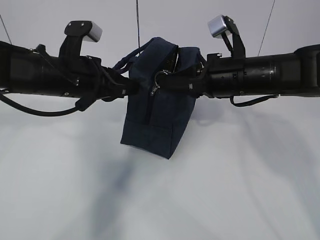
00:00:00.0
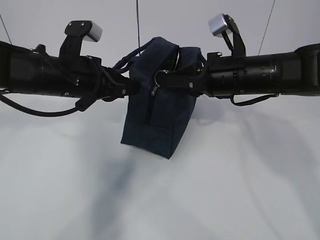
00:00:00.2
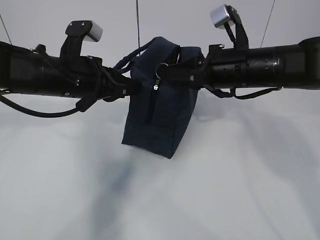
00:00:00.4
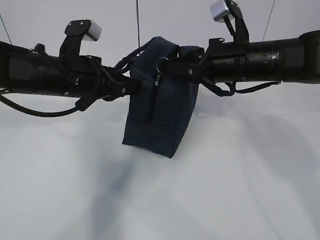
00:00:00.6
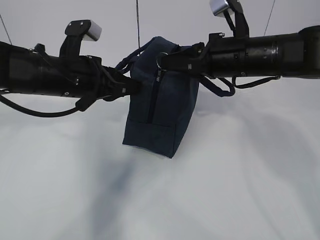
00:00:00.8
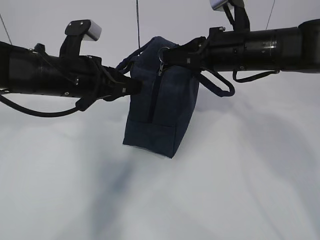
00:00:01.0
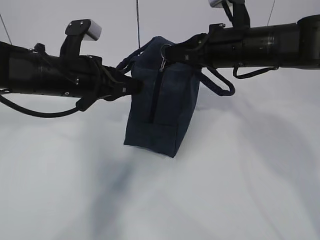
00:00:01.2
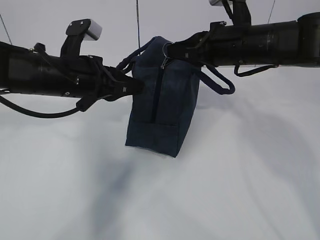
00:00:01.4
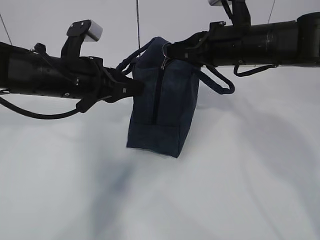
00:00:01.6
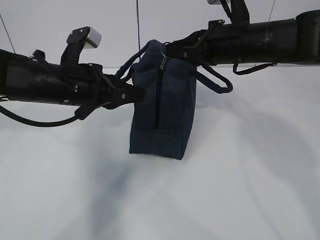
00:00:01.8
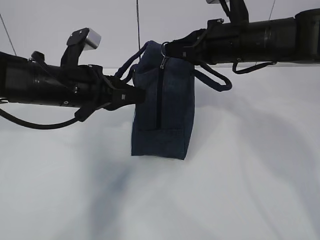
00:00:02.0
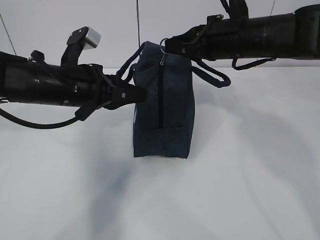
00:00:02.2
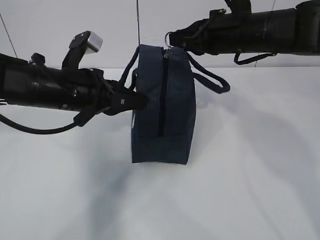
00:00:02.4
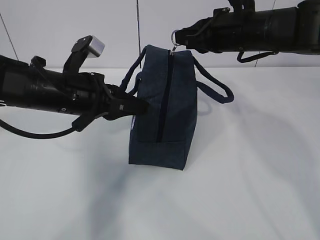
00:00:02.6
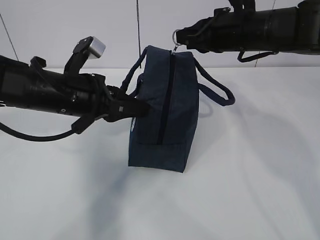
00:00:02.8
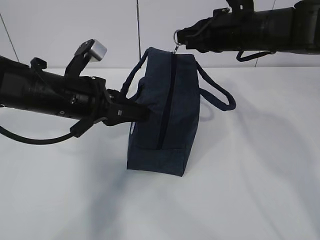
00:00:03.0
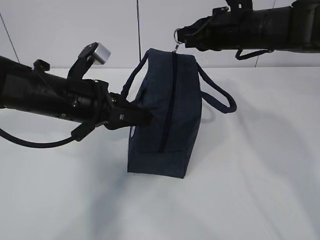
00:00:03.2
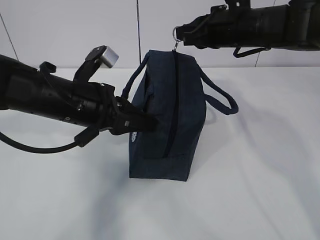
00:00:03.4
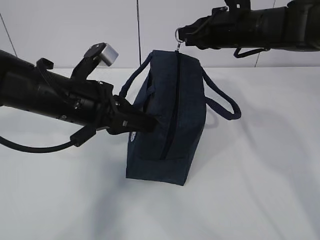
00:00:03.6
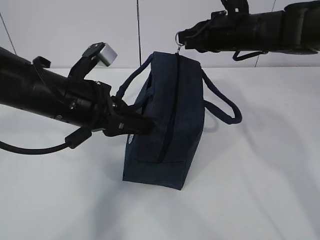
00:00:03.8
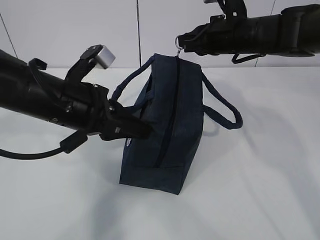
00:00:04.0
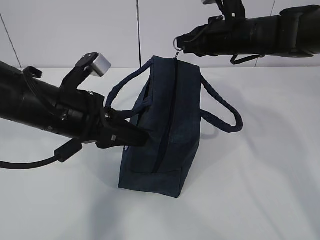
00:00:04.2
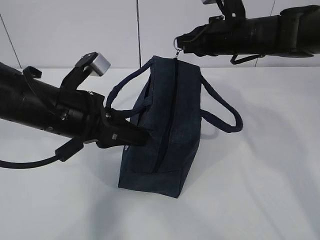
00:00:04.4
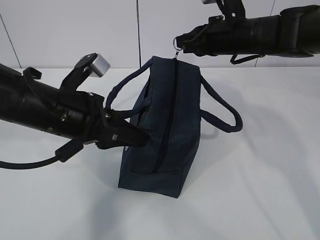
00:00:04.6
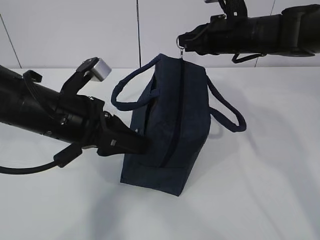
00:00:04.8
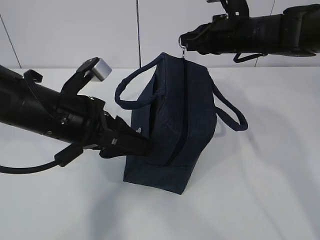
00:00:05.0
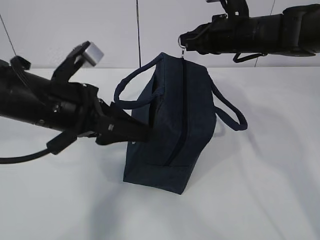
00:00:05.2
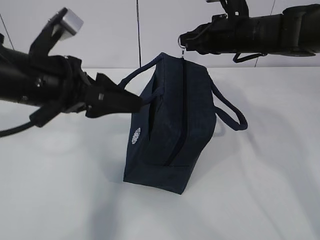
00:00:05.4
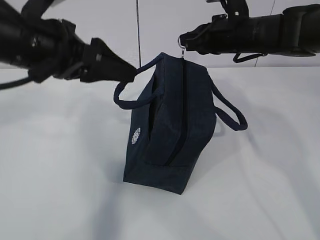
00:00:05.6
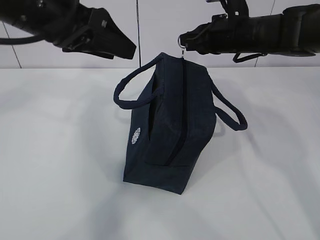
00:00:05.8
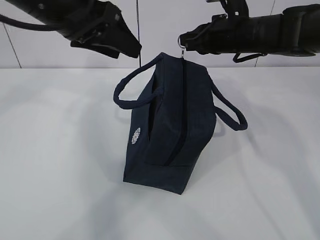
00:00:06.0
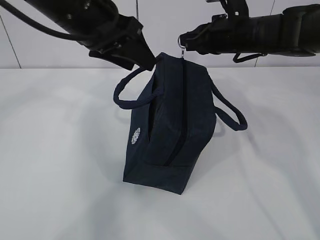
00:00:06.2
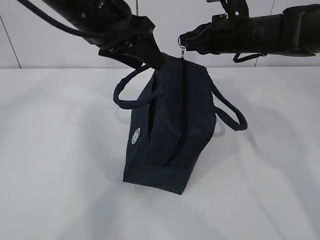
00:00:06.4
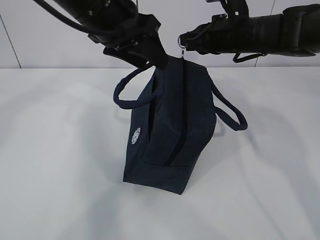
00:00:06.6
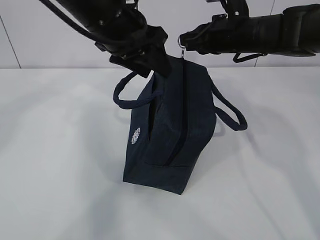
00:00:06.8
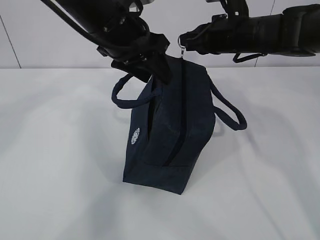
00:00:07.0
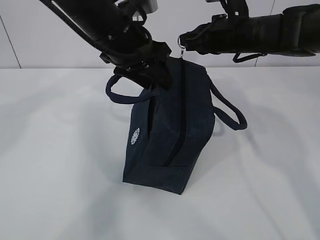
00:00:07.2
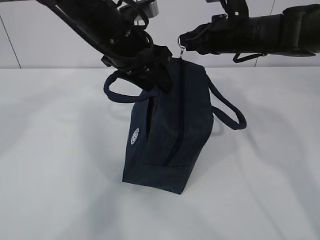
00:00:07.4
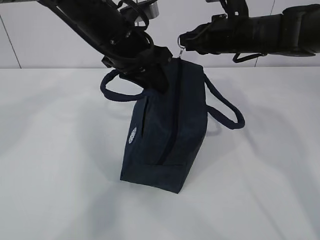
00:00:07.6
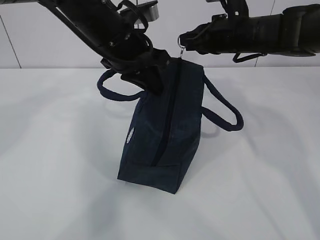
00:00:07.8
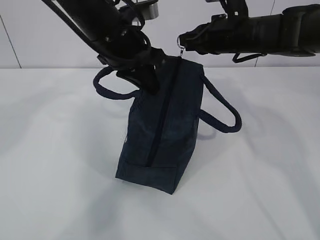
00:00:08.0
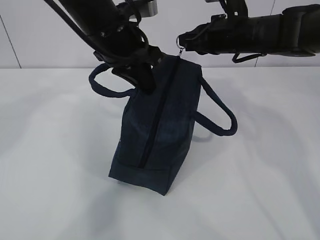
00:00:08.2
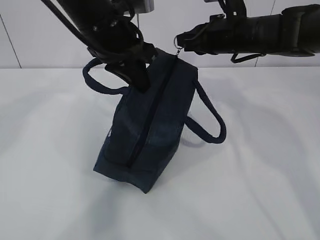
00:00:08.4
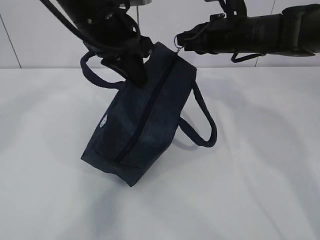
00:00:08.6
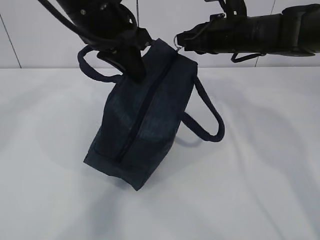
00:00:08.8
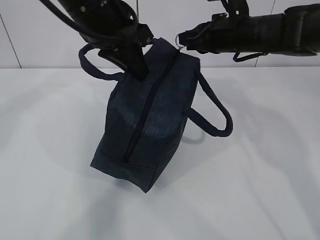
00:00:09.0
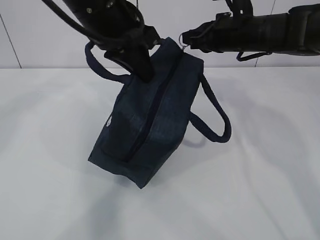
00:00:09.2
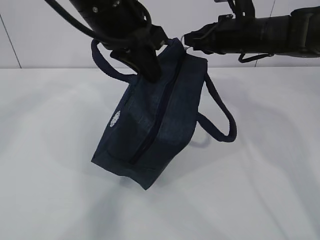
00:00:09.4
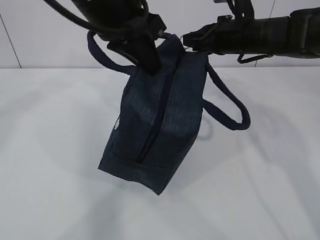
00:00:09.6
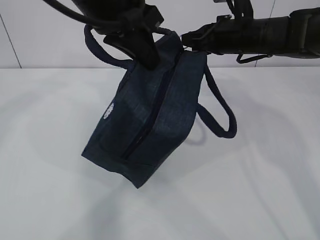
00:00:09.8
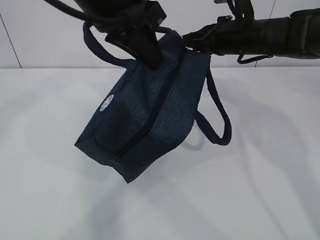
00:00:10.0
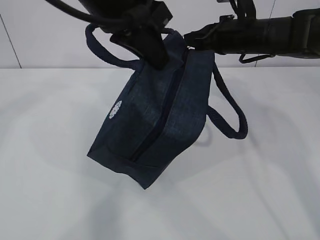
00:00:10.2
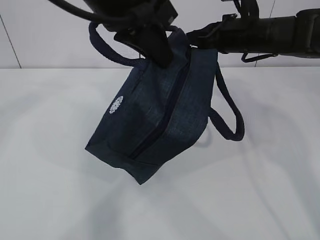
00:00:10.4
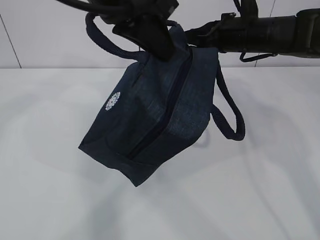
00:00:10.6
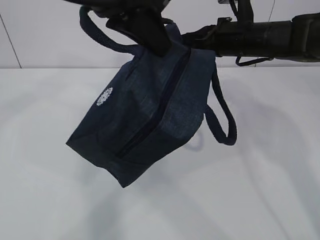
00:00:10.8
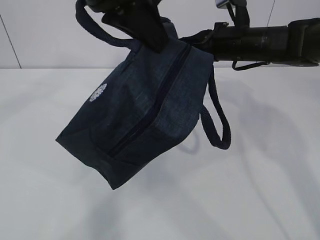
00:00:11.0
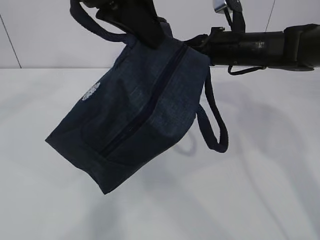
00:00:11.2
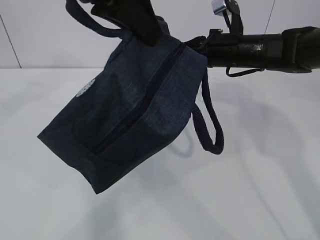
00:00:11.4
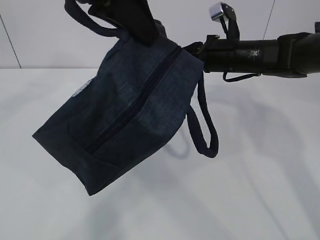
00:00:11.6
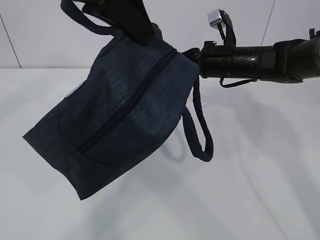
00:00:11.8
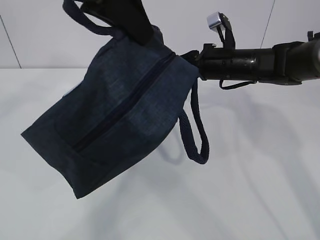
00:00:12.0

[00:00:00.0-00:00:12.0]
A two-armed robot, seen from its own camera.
Step, 00:00:00.6 to 00:00:04.8: Stand the lunch bag upright with your right hand.
00:00:00.0 to 00:00:01.6: The grippers make only small movements.
00:00:03.0 to 00:00:04.4: The grippers move only a little.
00:00:04.4 to 00:00:06.0: The left gripper is displaced upward and forward by about 15 cm, and opens up.
00:00:06.0 to 00:00:07.6: The left gripper goes about 10 cm to the right and downward, and closes up.
00:00:07.6 to 00:00:09.0: The left gripper moves upward, approximately 5 cm, and closes its fingers.
00:00:09.0 to 00:00:10.4: The left gripper ends up approximately 5 cm from where it was.
00:00:10.4 to 00:00:12.0: The left gripper shifts by some 5 cm. The right gripper shifts roughly 5 cm downward.

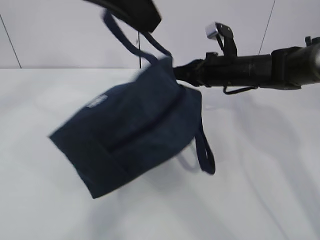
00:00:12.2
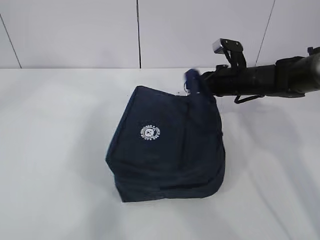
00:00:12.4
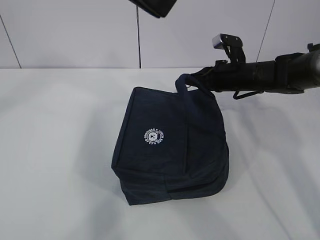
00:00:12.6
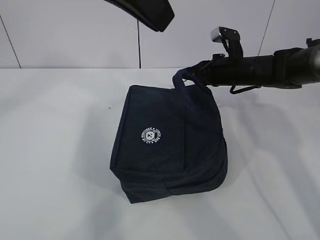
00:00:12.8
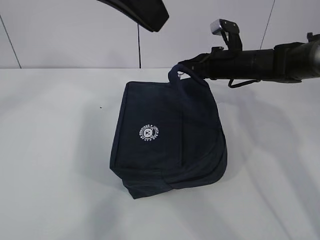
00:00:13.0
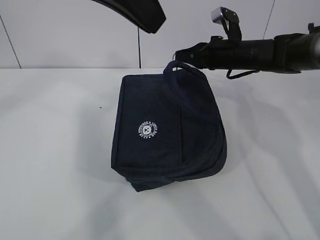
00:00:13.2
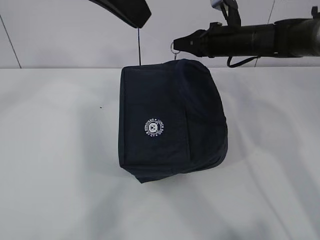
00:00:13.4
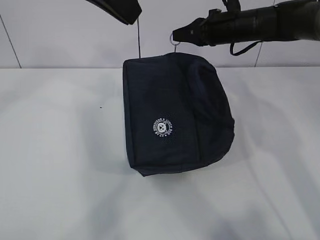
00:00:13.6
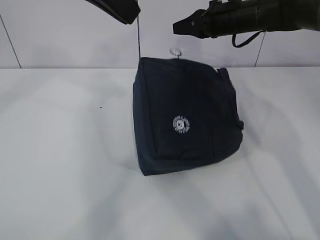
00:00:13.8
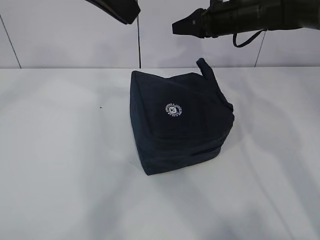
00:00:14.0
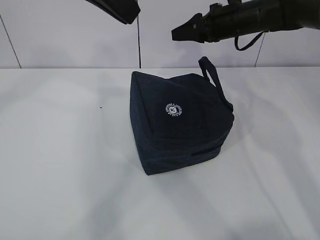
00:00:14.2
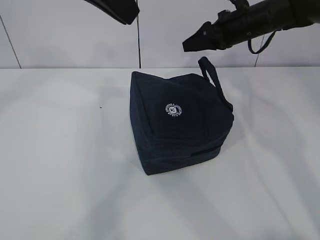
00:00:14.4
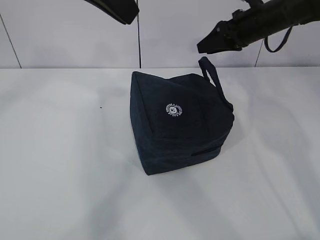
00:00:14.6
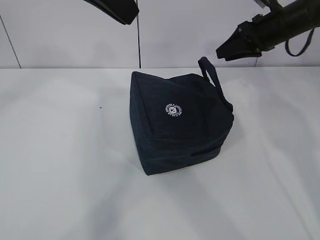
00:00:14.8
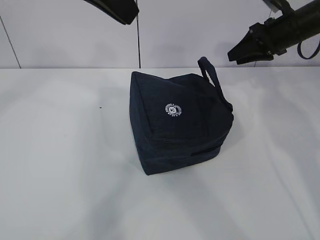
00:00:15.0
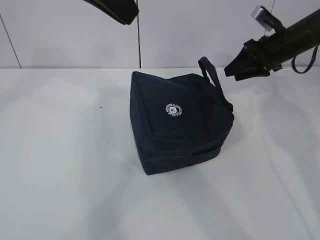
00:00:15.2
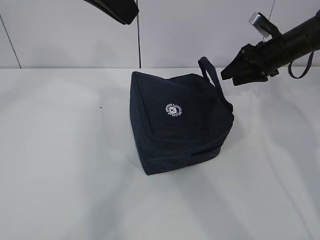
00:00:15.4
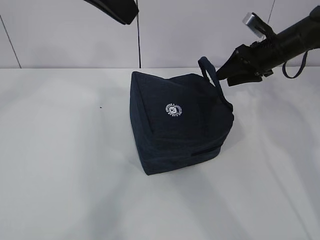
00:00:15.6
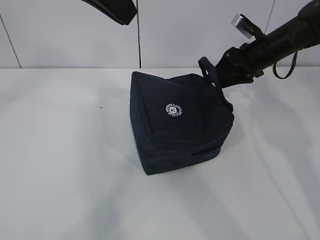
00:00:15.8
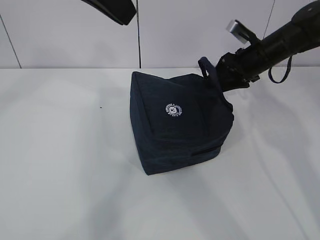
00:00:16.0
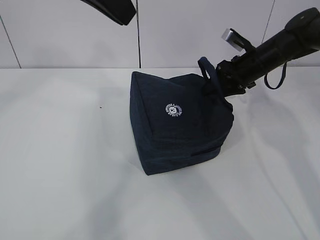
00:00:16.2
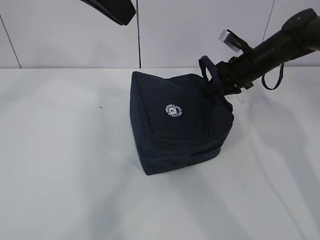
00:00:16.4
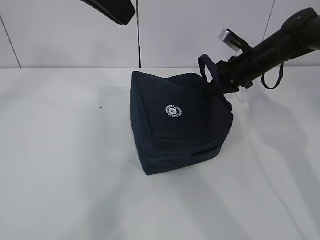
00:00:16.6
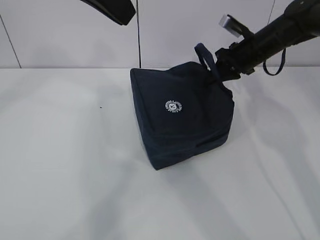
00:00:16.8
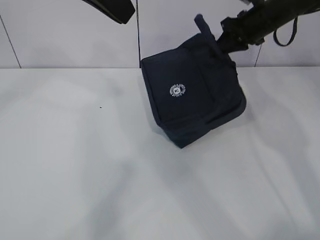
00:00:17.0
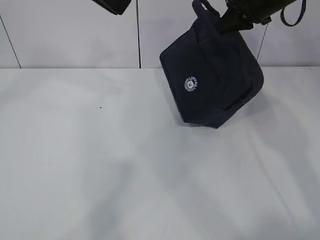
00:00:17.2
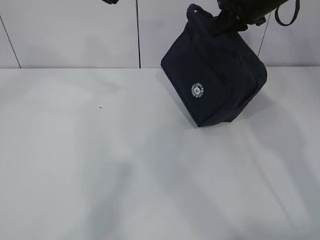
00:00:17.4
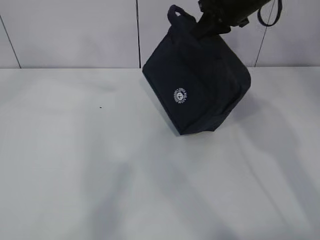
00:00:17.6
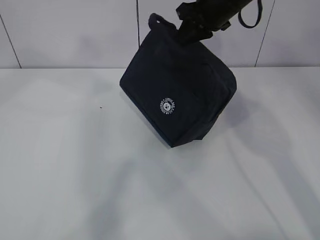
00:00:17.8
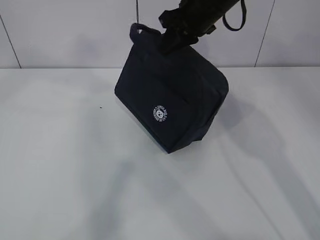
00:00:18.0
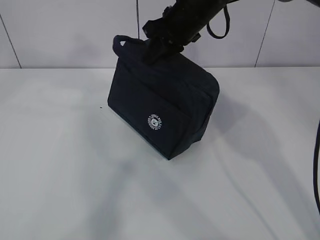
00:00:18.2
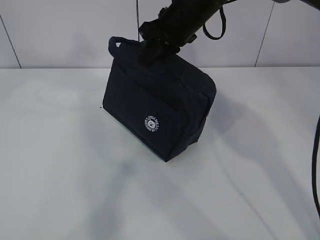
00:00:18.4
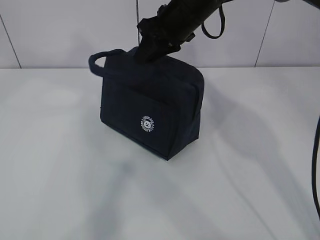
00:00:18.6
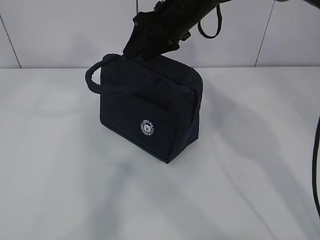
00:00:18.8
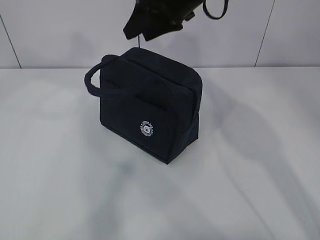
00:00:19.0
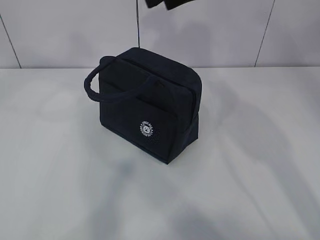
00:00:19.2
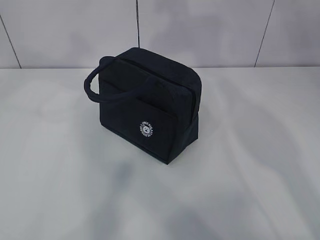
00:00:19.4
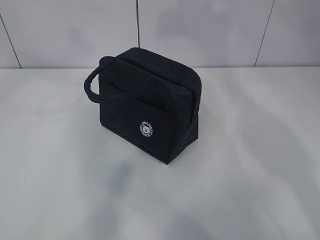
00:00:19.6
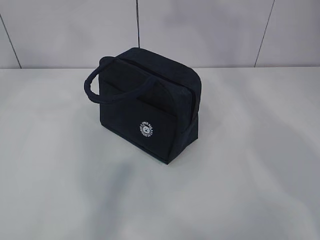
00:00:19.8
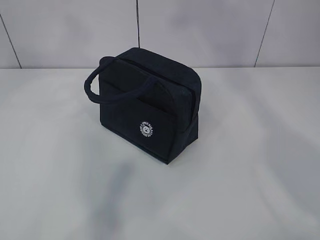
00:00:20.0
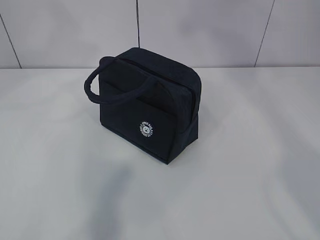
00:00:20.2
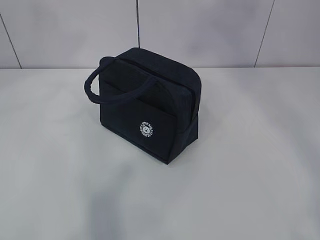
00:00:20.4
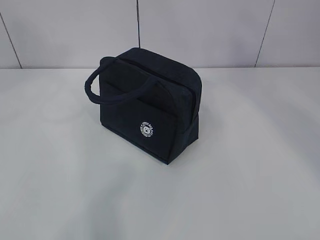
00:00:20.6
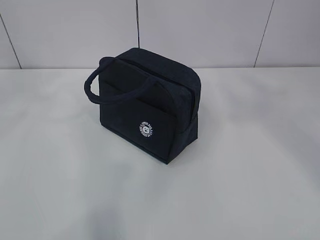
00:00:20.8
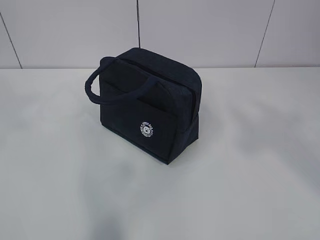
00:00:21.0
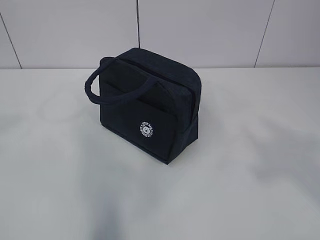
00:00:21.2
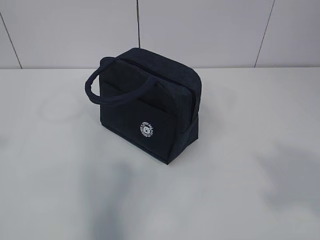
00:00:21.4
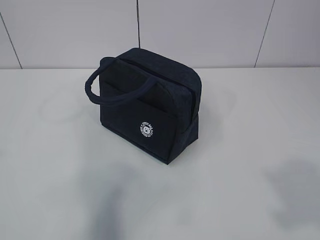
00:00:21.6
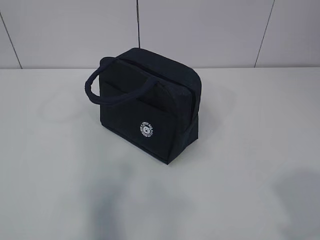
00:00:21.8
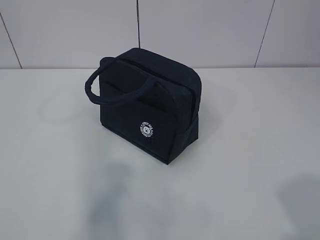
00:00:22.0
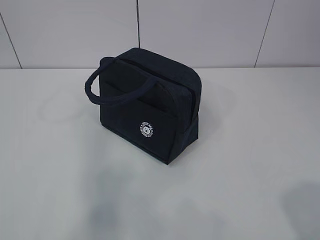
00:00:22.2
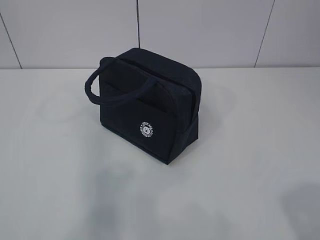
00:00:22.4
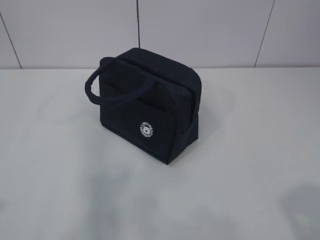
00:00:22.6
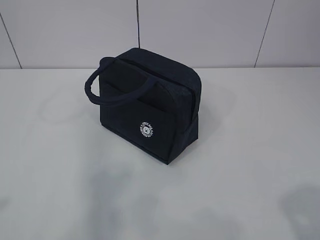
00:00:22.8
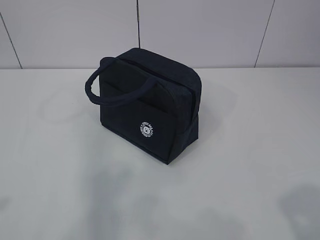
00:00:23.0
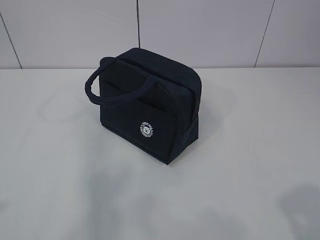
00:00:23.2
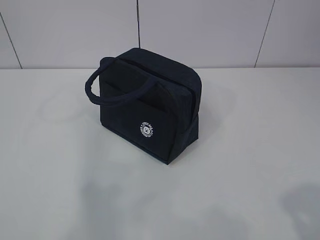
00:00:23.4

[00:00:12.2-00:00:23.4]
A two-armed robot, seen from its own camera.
00:00:12.2 to 00:00:13.8: The right gripper shifts some 10 cm upward.
00:00:13.8 to 00:00:15.4: The right gripper shifts roughly 10 cm to the right and downward, and opens its fingers.
00:00:15.4 to 00:00:17.0: The right gripper goes roughly 5 cm upward, and closes its fingers.
00:00:17.0 to 00:00:18.6: The left gripper is displaced upward by roughly 5 cm. The right gripper travels to the left by some 15 cm.
00:00:18.6 to 00:00:20.2: The right gripper is displaced upward and backward by roughly 40 cm, and opens up.
00:00:20.2 to 00:00:21.8: The right gripper is displaced downward and backward by some 35 cm.
